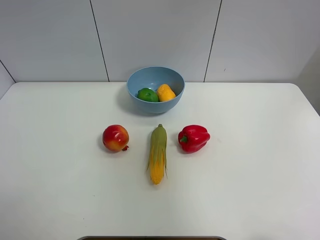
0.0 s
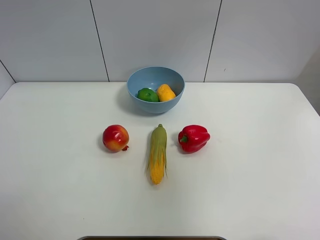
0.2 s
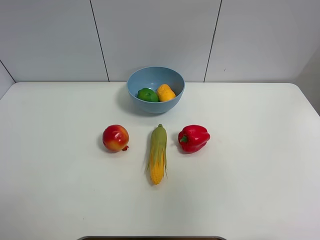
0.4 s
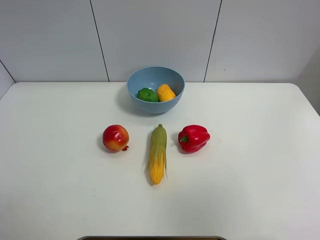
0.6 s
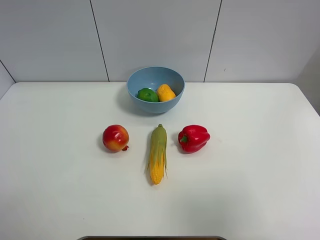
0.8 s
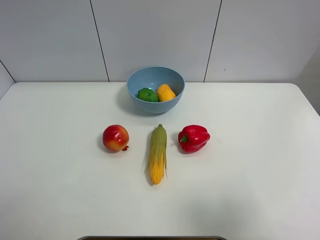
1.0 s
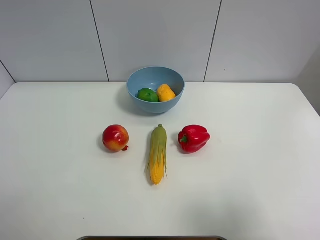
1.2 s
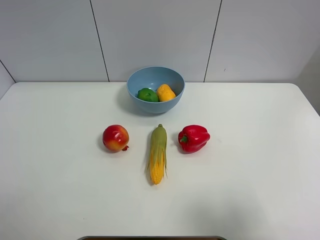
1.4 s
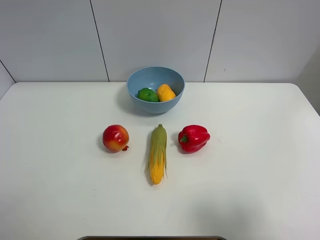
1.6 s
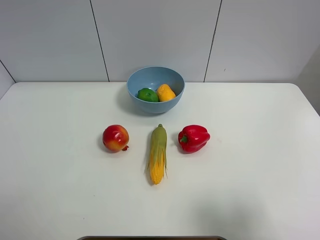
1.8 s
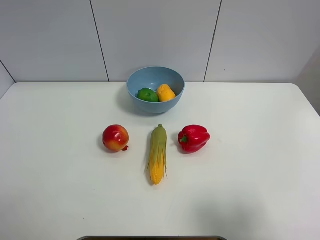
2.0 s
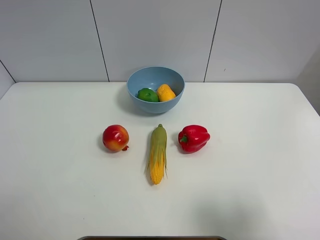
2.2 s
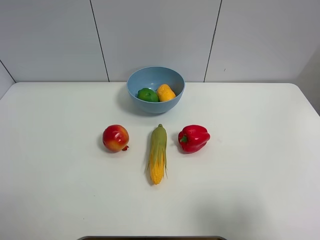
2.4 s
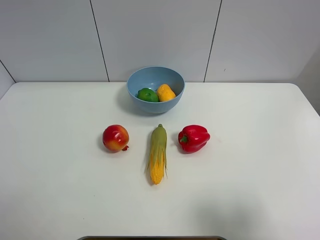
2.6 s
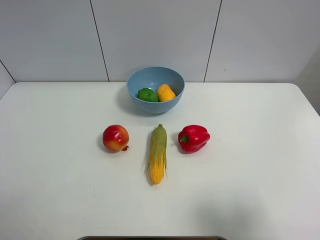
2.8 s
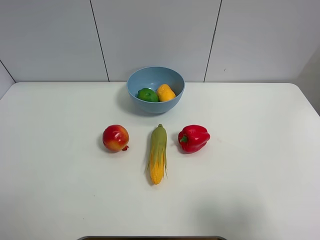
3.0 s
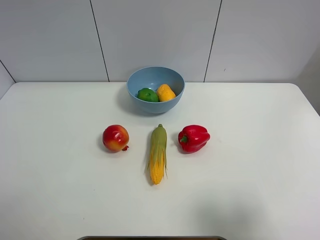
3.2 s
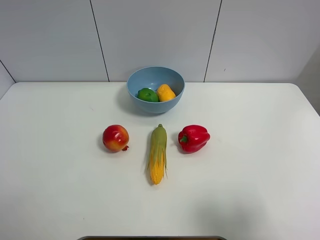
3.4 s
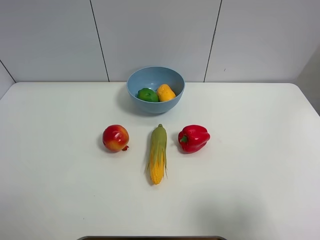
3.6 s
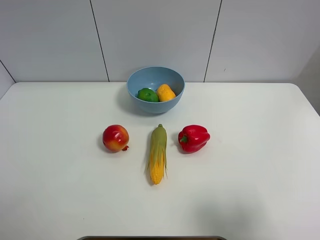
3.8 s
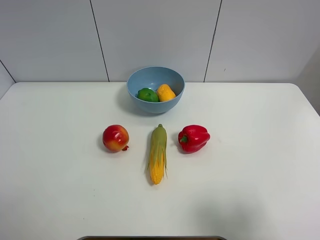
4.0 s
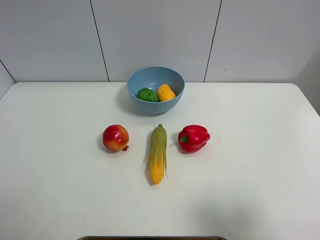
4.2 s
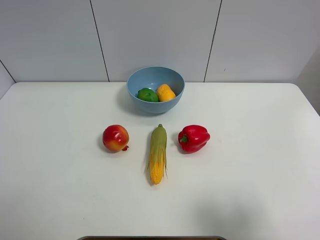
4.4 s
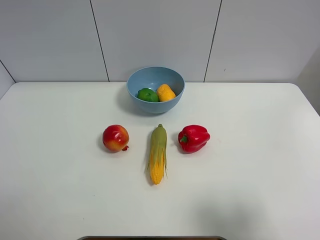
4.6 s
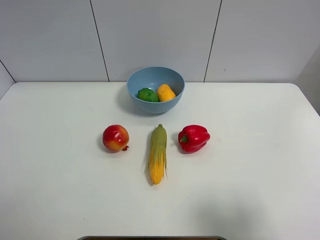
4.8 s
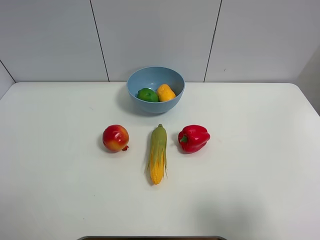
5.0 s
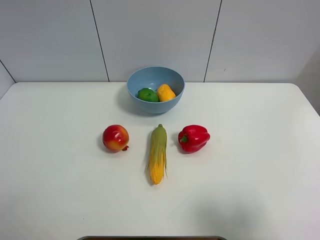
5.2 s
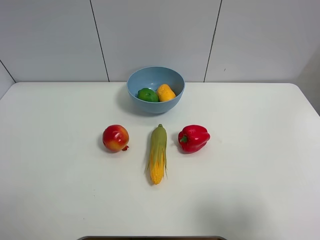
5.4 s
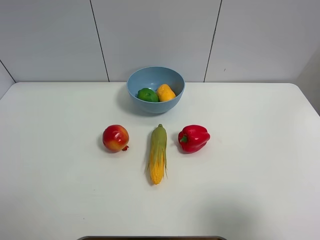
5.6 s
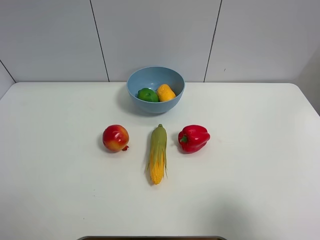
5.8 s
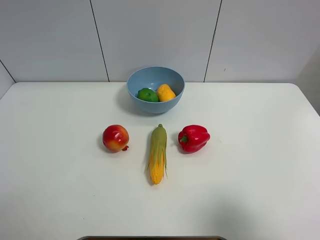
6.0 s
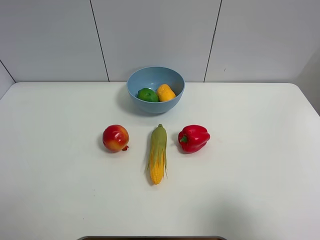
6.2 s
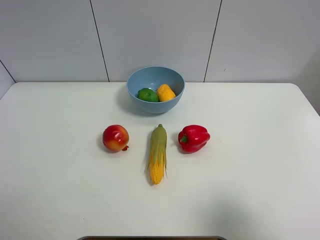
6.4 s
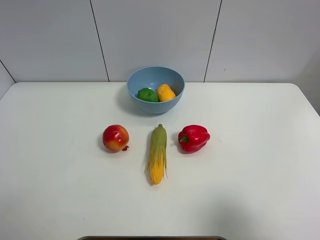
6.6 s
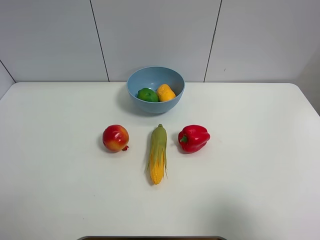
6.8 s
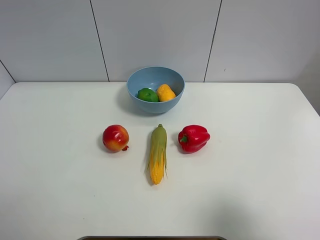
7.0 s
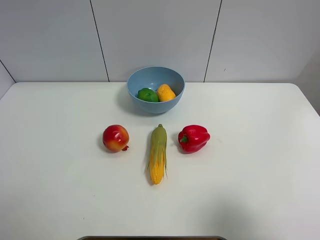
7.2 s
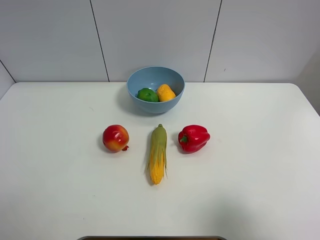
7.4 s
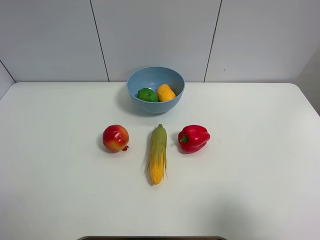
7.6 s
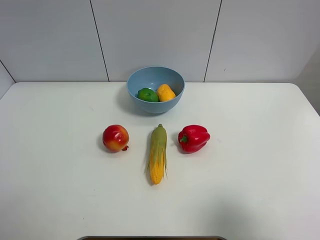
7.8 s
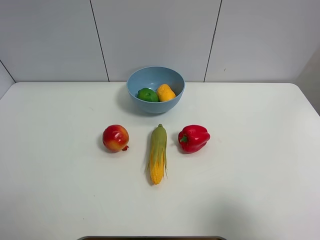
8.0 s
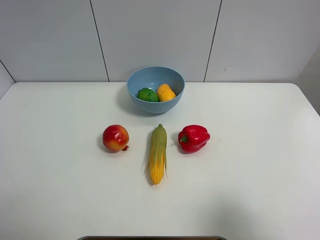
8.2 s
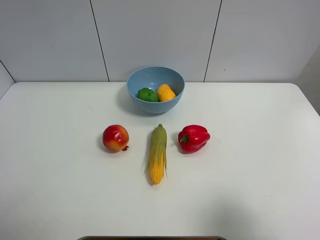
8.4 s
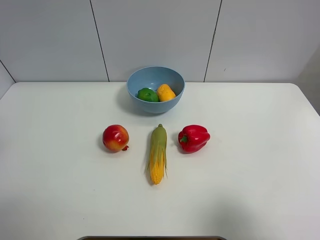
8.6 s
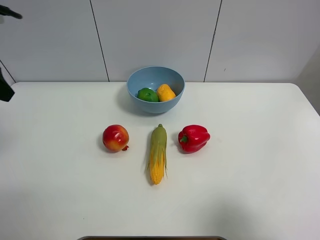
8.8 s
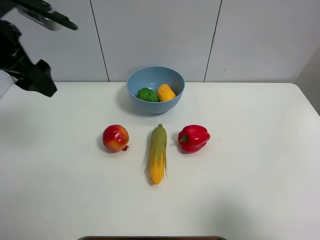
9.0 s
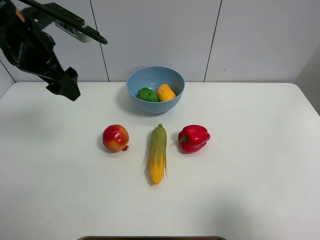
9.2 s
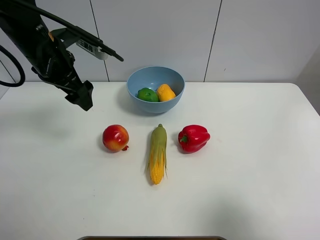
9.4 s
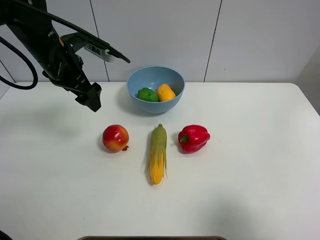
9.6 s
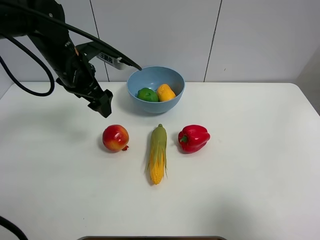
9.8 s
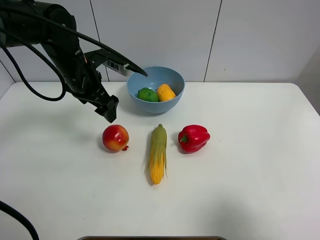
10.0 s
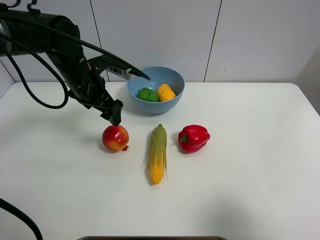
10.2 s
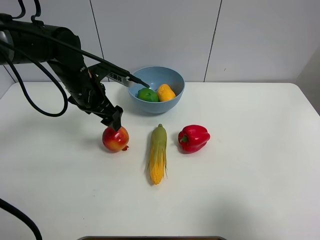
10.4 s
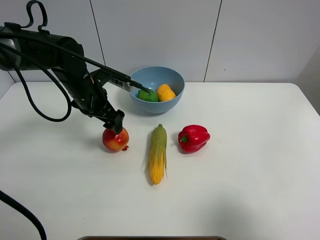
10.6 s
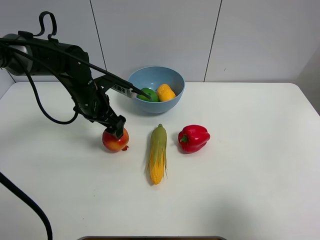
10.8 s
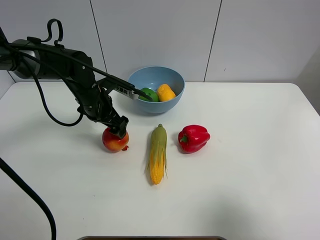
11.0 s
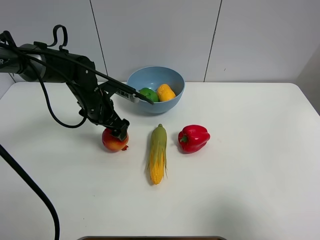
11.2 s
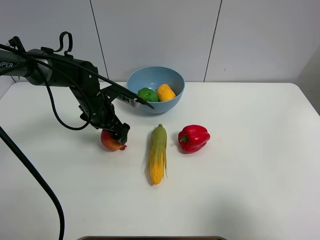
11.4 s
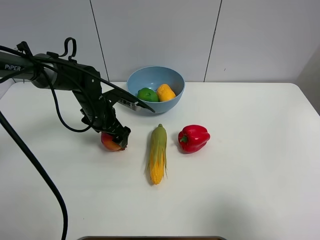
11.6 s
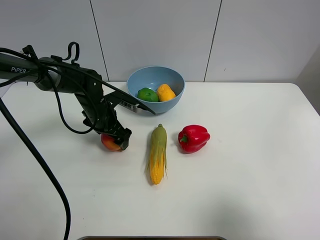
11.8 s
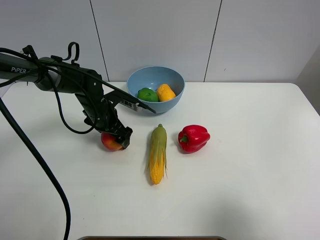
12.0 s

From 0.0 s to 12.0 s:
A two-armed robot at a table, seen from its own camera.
Task of the whole recording: Put the three fruits on the table into a bowl.
From 0.0 s to 1.6 s: The right gripper is displaced downward by approximately 25 cm.
From 1.6 s to 4.4 s: Both grippers stay put.
From 7.6 s to 9.0 s: The left gripper goes about 25 cm forward and to the right.
From 9.0 s to 10.4 s: The left gripper goes approximately 15 cm downward and to the right.
From 10.4 s to 12.0 s: The left gripper moves downward, roughly 10 cm.

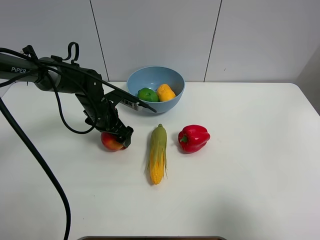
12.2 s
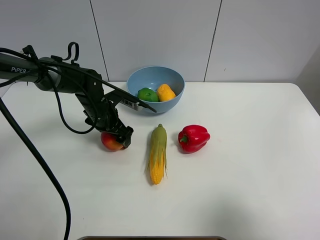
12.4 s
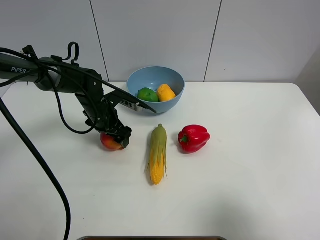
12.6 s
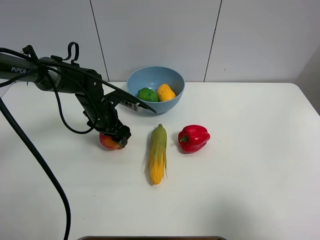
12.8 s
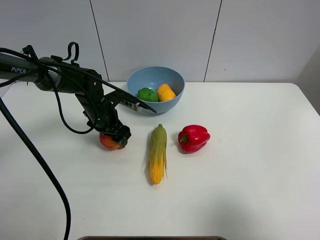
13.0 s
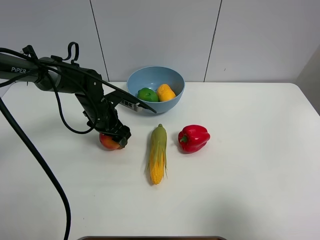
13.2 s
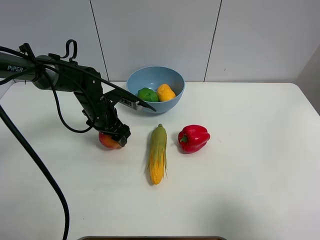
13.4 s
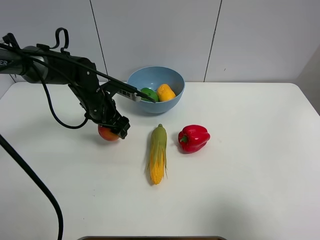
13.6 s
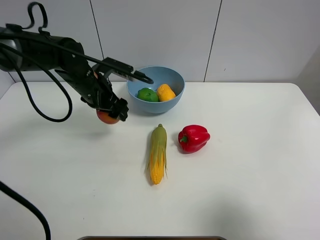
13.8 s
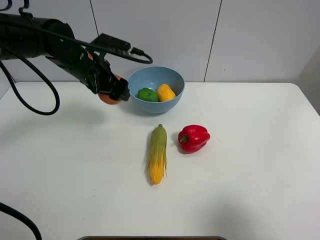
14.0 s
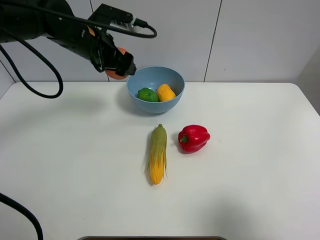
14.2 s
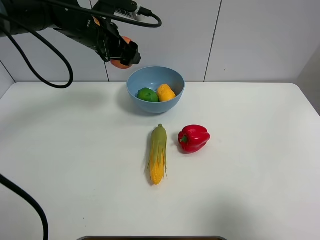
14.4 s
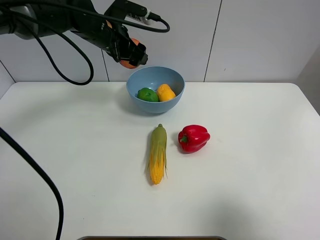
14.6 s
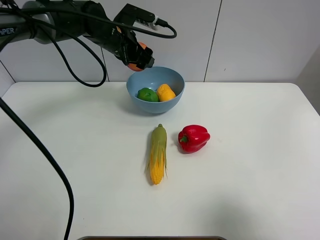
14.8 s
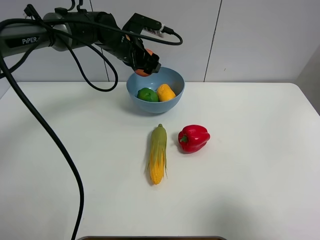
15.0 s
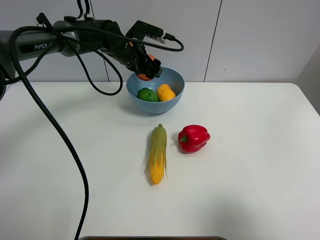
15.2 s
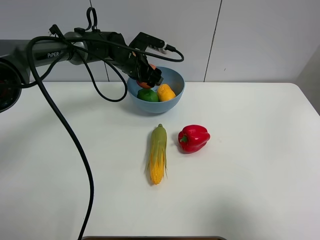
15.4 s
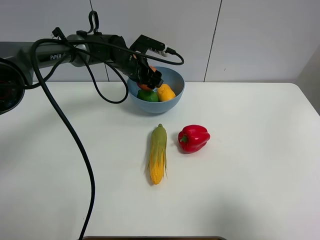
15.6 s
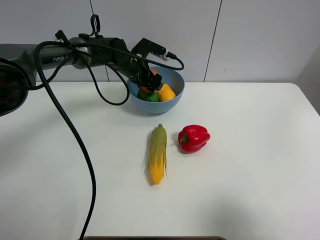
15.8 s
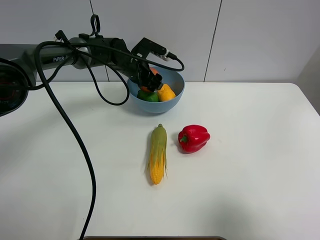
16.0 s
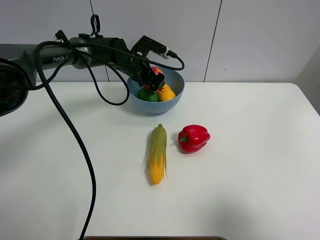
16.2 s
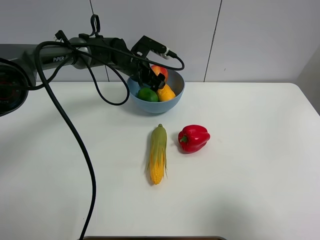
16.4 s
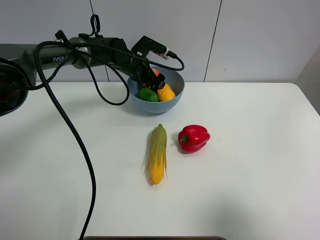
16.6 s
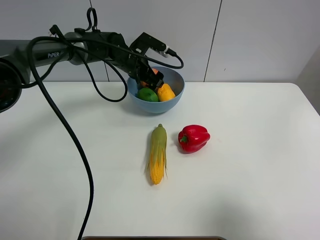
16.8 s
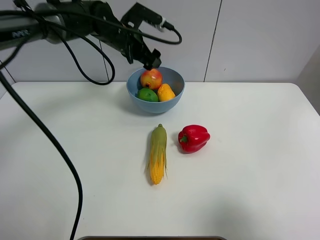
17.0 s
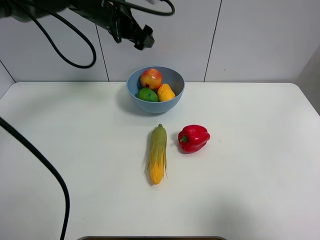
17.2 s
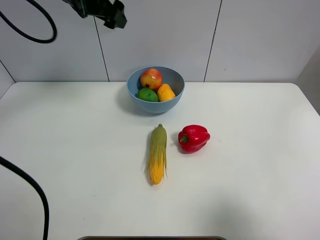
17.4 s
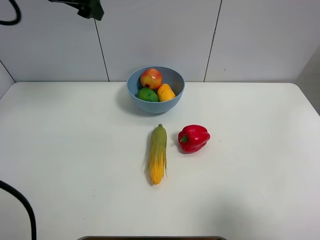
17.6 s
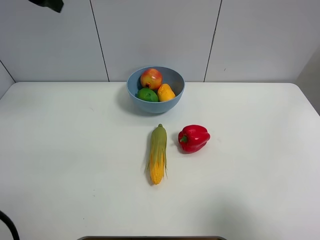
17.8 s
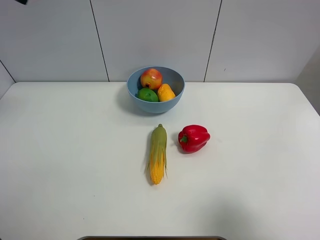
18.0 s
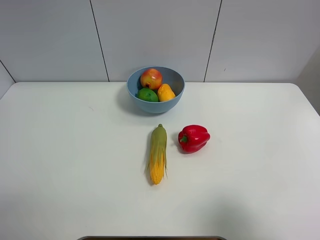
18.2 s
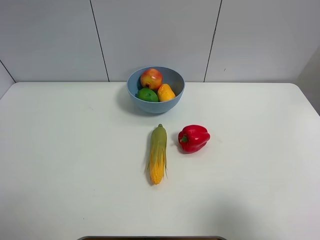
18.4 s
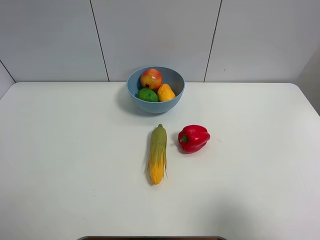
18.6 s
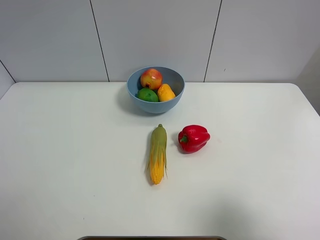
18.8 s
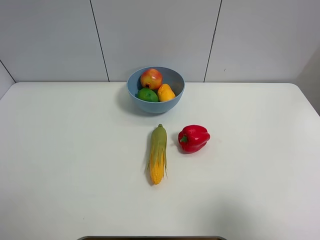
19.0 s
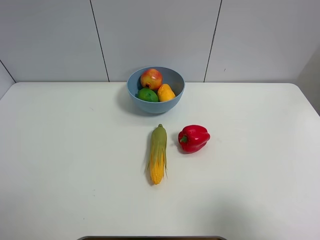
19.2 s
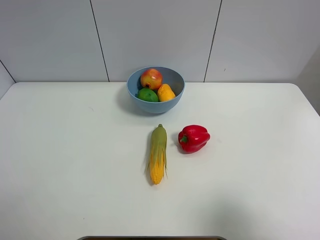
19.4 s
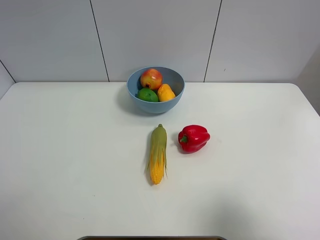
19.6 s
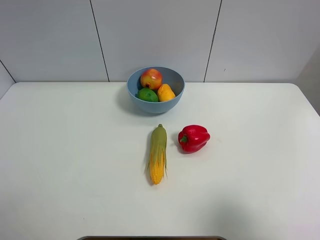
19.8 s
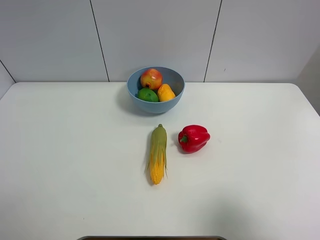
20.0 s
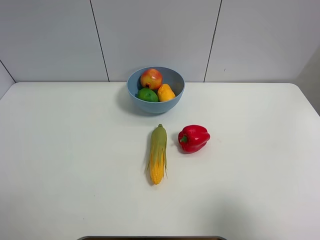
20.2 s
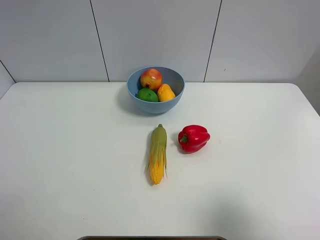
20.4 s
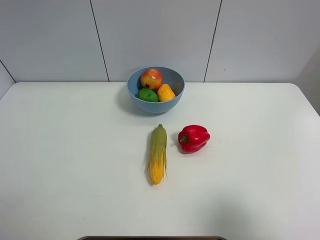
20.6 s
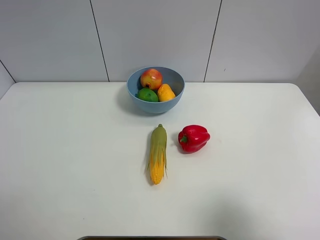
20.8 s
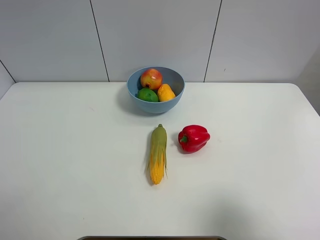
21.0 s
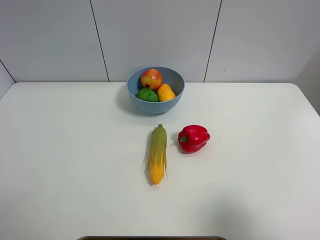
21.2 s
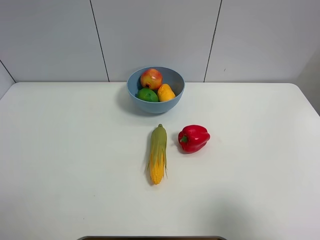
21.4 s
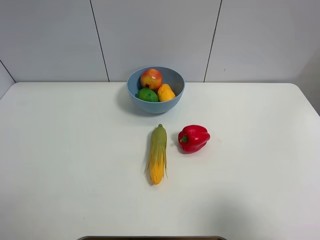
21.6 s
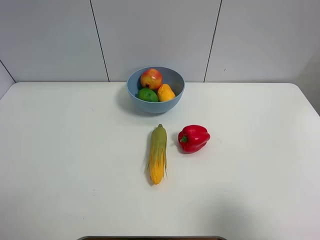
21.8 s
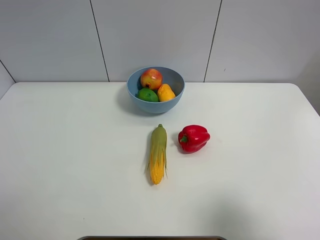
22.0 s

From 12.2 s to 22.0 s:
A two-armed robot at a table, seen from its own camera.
Task of the whole recording: Put the three fruits on the table into a bowl.
Step, from 13.0 s to 16.6 s: Place the pomegranate in the blue bowl with left gripper.
From 12.2 s to 13.6 s: There are only small adjustments of the grippers.
From 13.6 s to 15.0 s: The left gripper travels forward, upward and to the right by approximately 15 cm.
From 15.0 s to 16.4 s: The left gripper shifts roughly 5 cm downward.
From 16.4 s to 17.8 s: The left gripper shifts some 35 cm upward, to the left and backward.
From 17.8 s to 19.2 s: The left gripper moves backward, approximately 35 cm.
From 20.6 s to 22.0 s: The two grippers keep their place.
